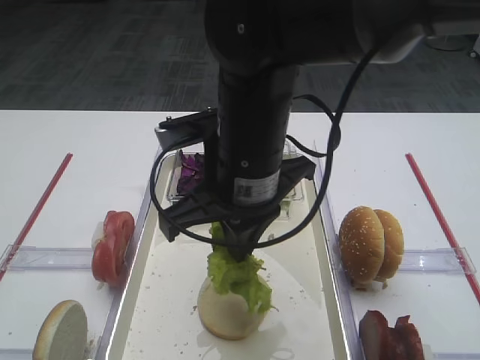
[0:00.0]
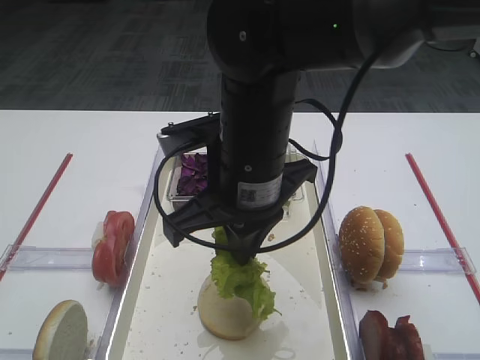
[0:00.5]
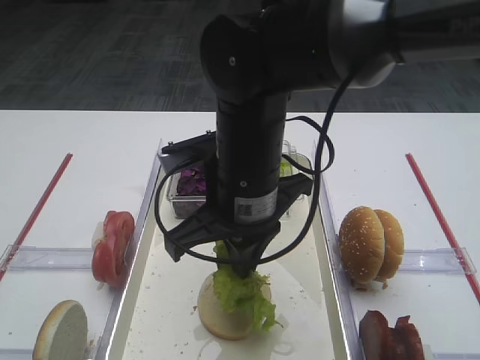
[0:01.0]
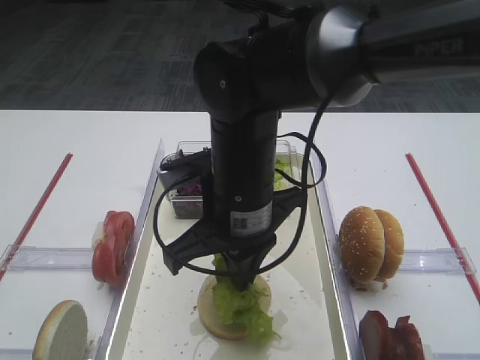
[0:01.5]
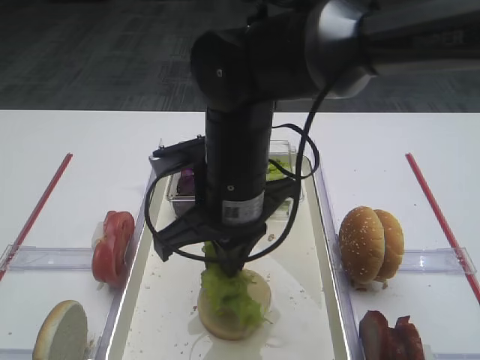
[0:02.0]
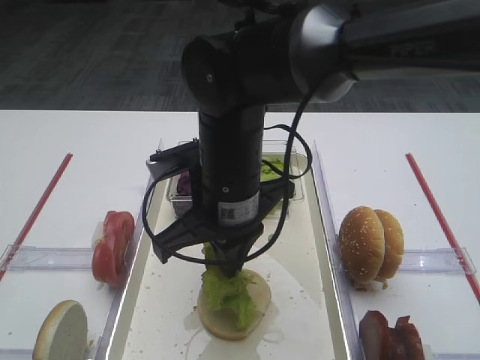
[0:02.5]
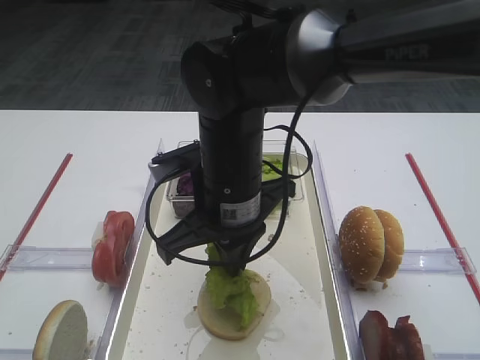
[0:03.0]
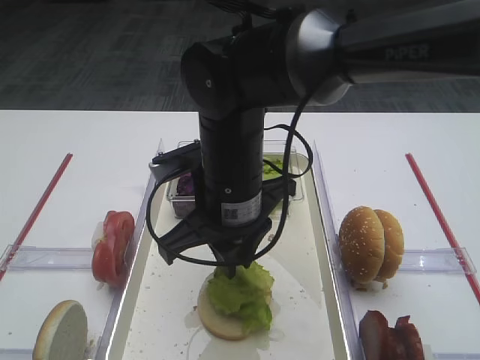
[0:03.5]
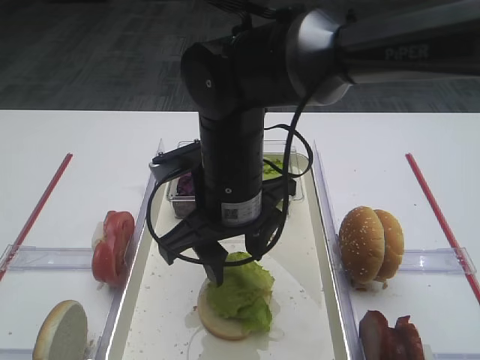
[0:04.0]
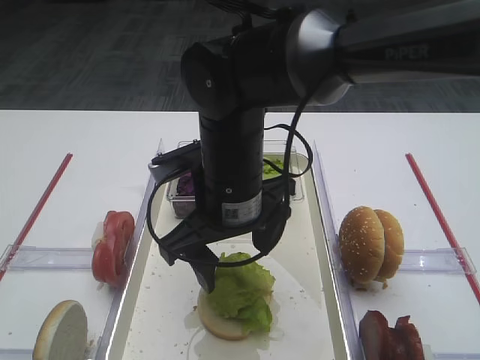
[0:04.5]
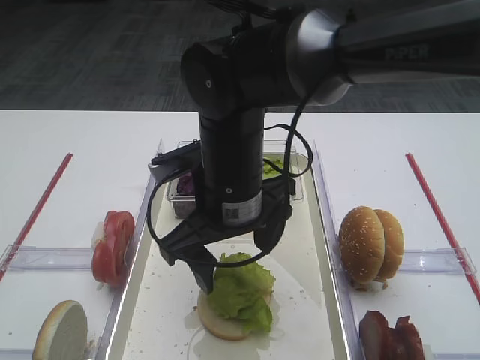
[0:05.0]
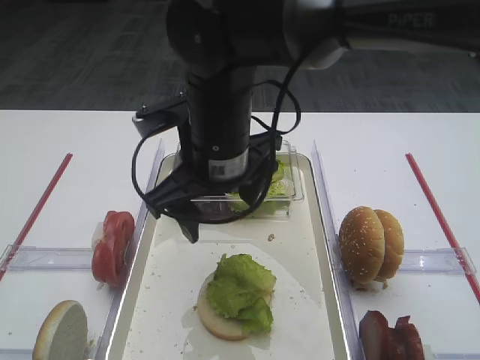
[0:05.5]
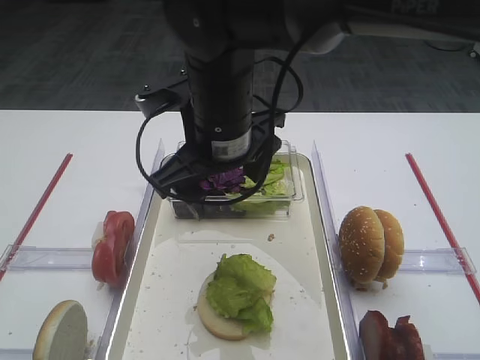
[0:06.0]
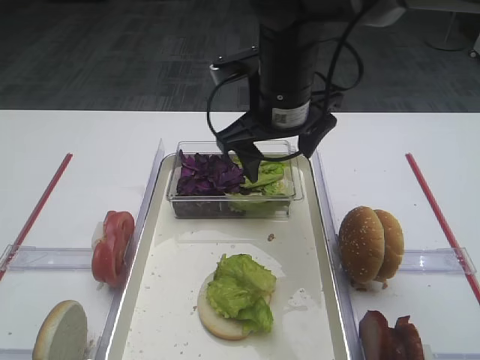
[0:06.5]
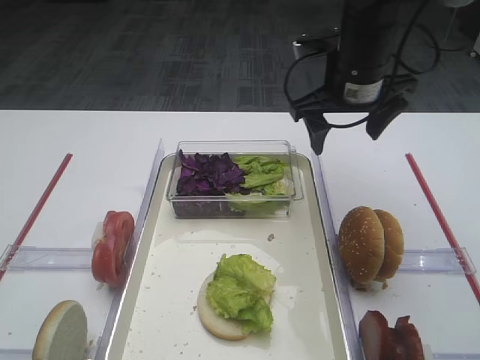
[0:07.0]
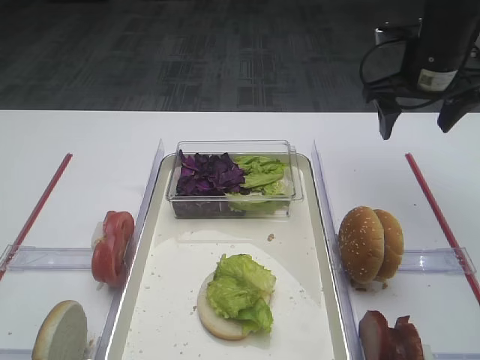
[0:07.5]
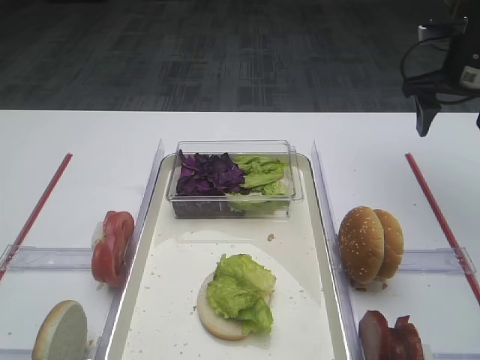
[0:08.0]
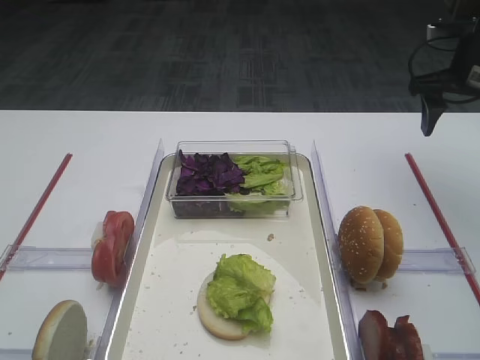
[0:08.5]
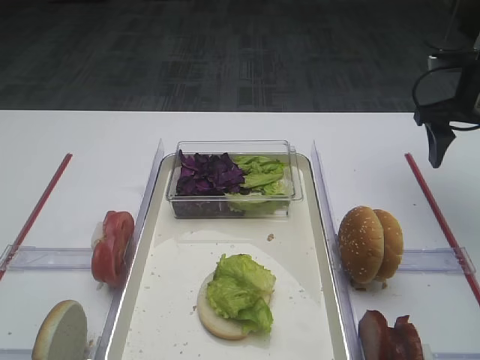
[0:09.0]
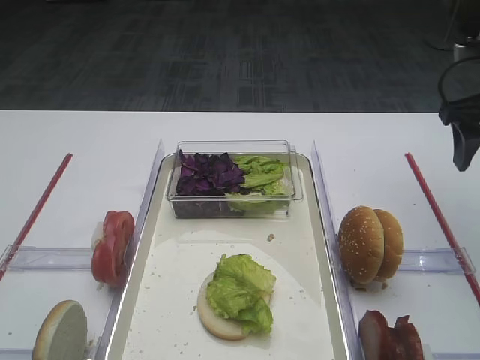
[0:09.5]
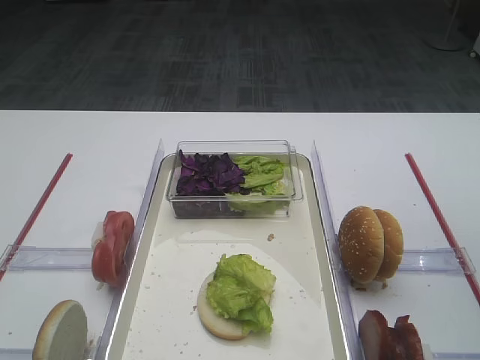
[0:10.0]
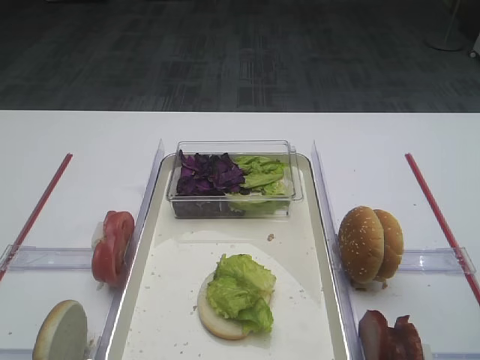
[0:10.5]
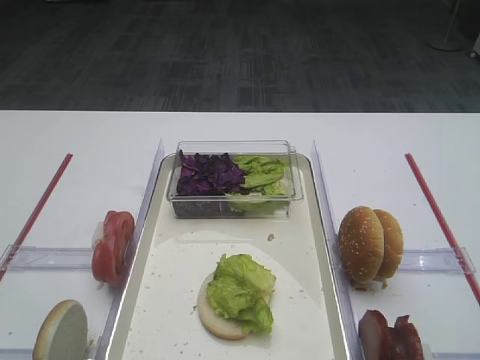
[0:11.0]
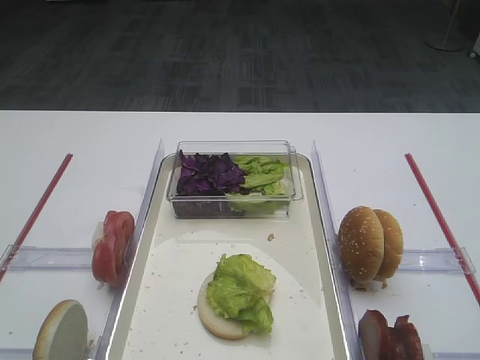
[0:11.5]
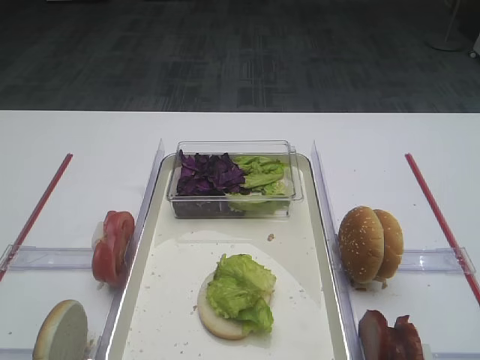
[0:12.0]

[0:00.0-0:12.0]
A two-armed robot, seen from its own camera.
Step, 0:00.0 to 0:05.5: Place the lettuce leaf on the bread slice with the right gripper.
0:00.0 to 0:02.0: There are only small adjustments of the grippers.
0:02.0 to 0:04.0: The right gripper opens.
0:04.0 to 0:06.0: The right gripper moves roughly 5 cm.
0:06.0 to 0:08.0: The right gripper is displaced to the right by some 30 cm.
0:08.0 to 0:10.0: The right gripper is displaced backward by approximately 15 cm.

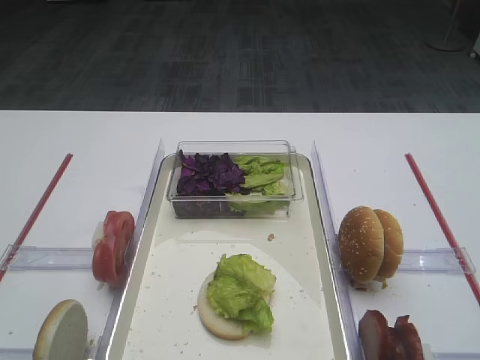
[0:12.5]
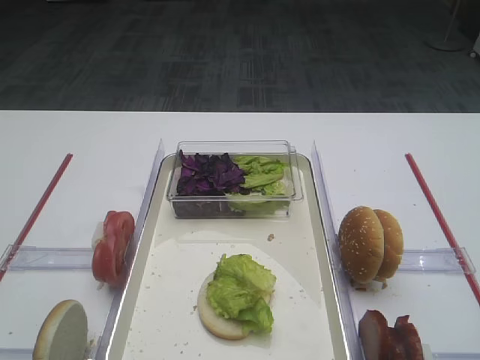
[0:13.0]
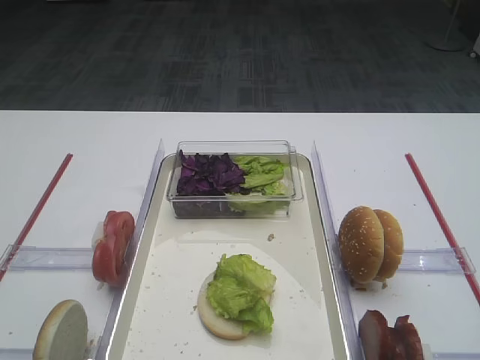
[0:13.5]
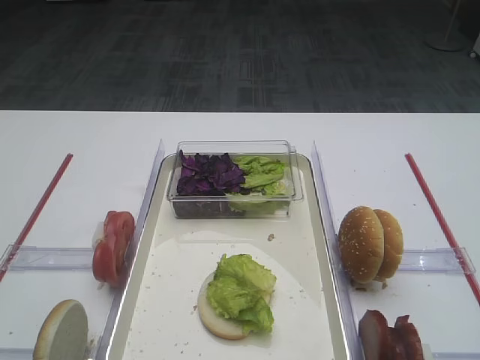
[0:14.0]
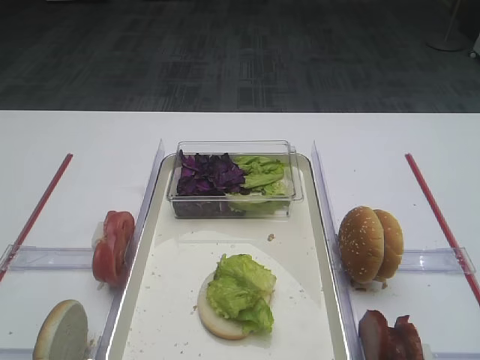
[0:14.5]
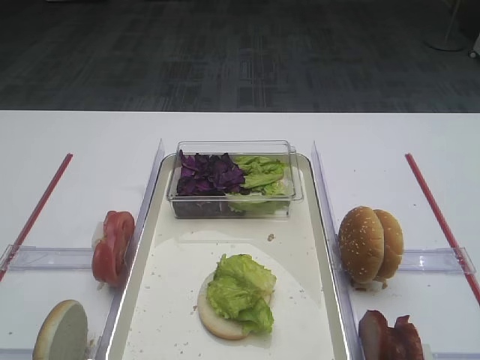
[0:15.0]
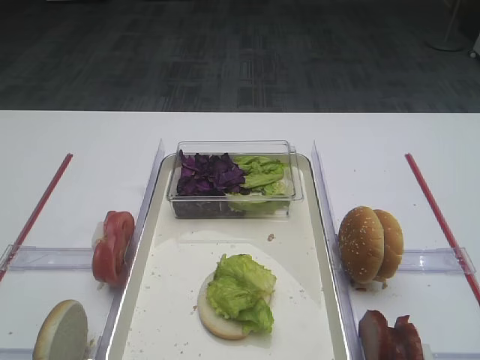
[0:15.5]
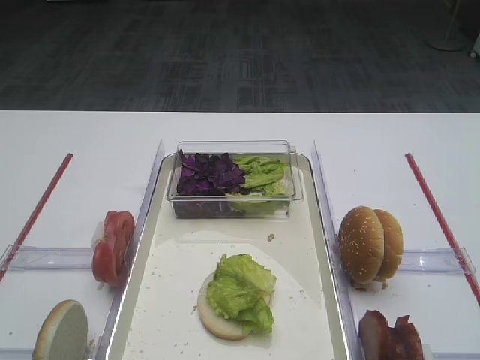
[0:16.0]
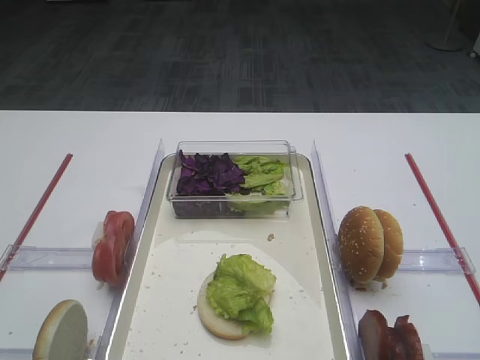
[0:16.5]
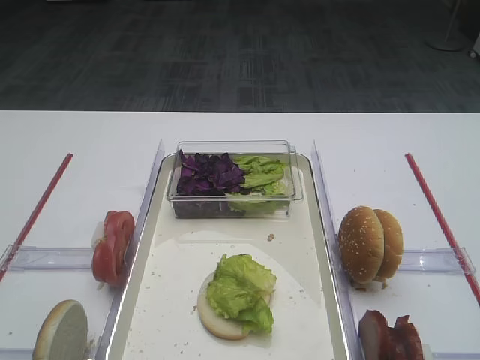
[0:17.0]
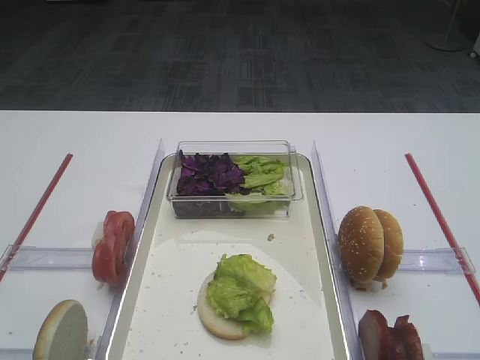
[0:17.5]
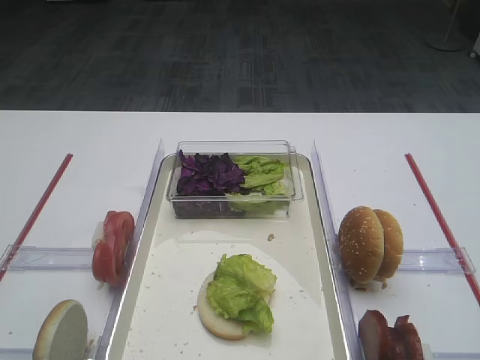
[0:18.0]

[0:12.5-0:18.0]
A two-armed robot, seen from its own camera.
0:14.5 to 0:18.0: Both grippers stay about where they are.
